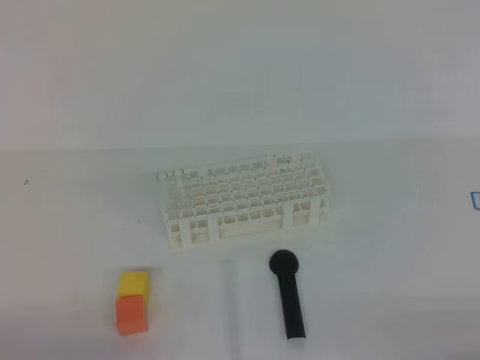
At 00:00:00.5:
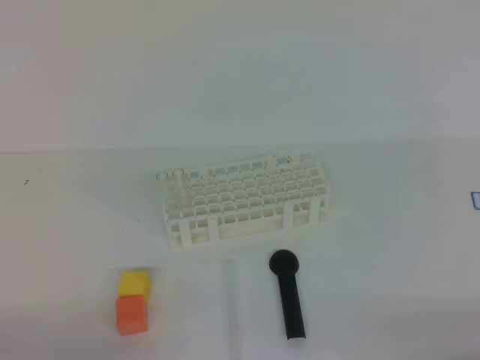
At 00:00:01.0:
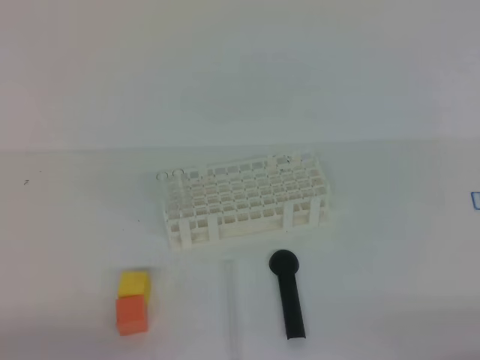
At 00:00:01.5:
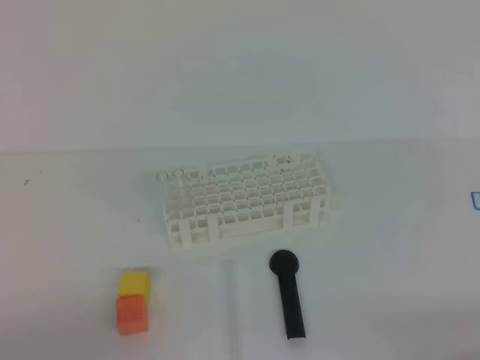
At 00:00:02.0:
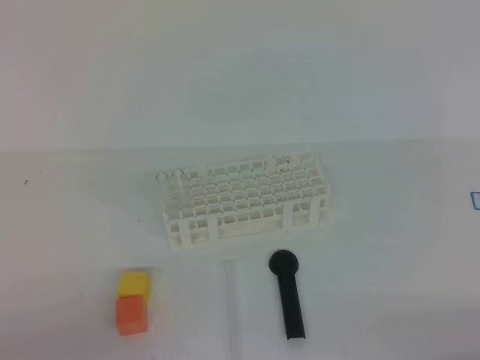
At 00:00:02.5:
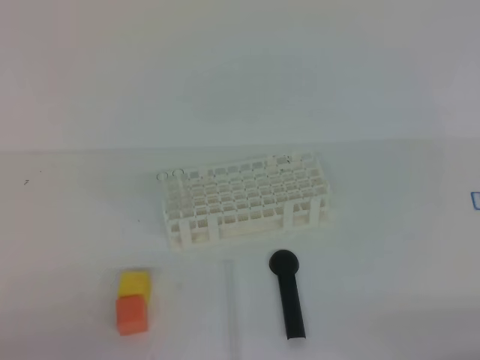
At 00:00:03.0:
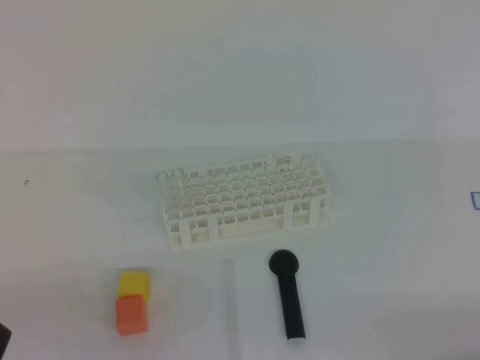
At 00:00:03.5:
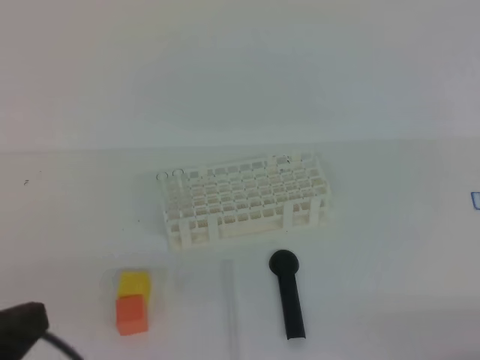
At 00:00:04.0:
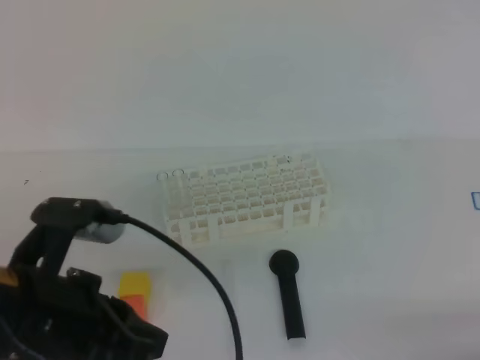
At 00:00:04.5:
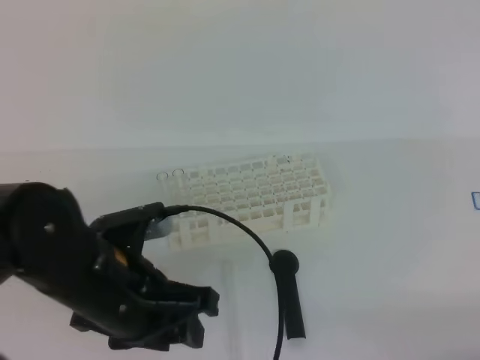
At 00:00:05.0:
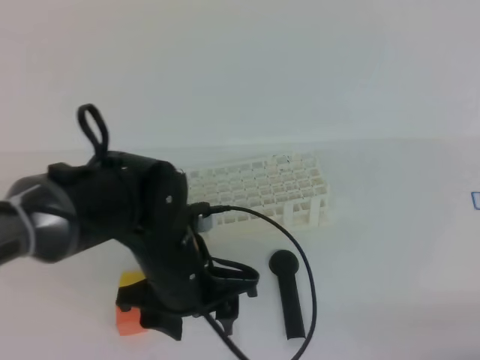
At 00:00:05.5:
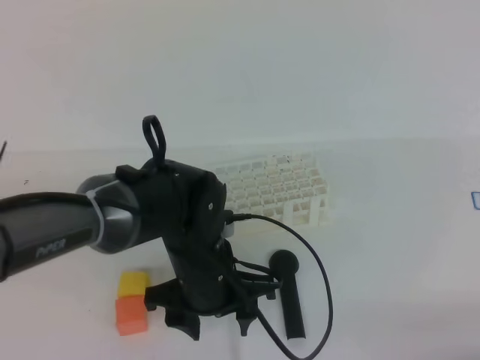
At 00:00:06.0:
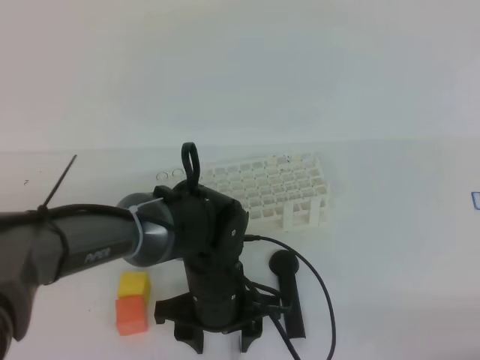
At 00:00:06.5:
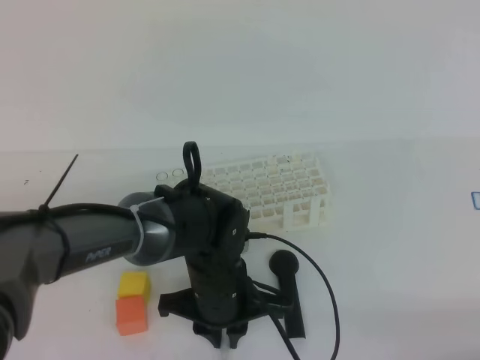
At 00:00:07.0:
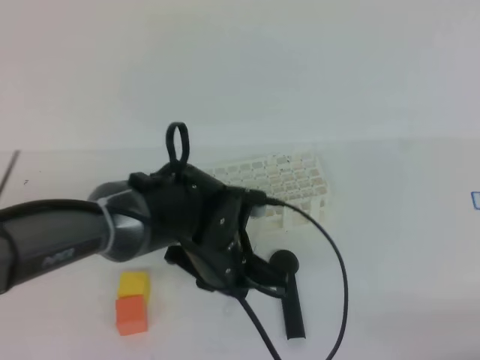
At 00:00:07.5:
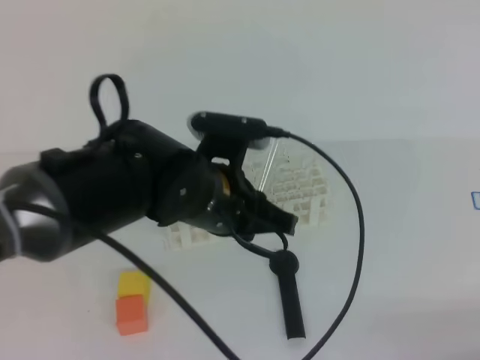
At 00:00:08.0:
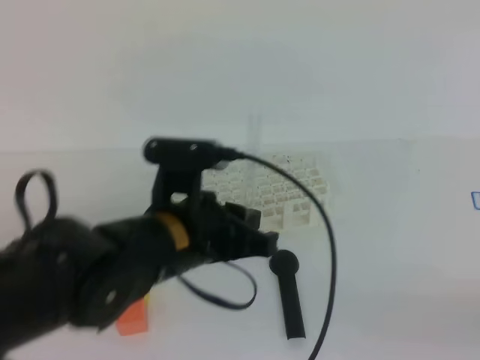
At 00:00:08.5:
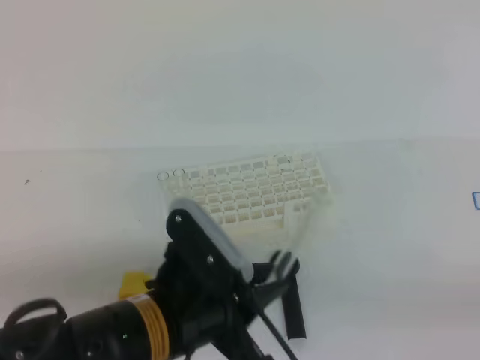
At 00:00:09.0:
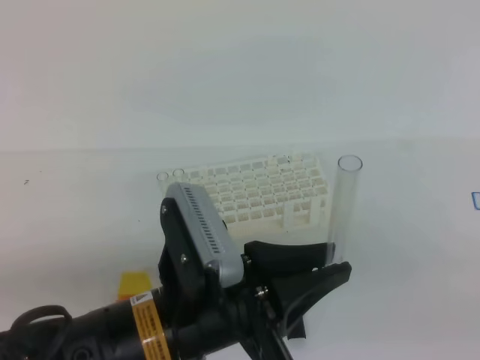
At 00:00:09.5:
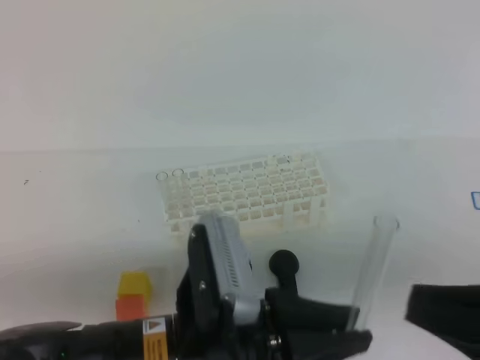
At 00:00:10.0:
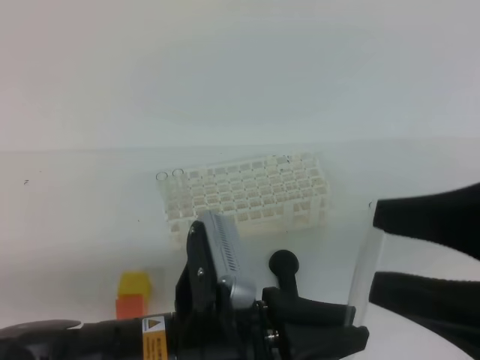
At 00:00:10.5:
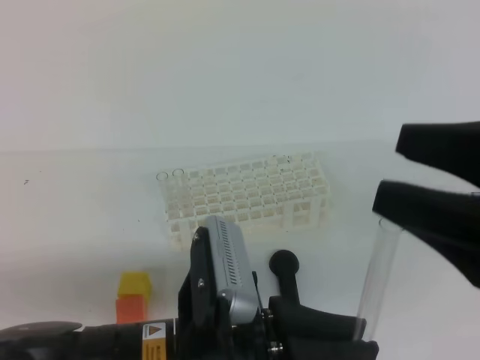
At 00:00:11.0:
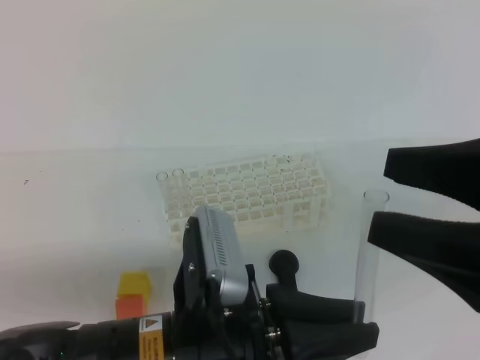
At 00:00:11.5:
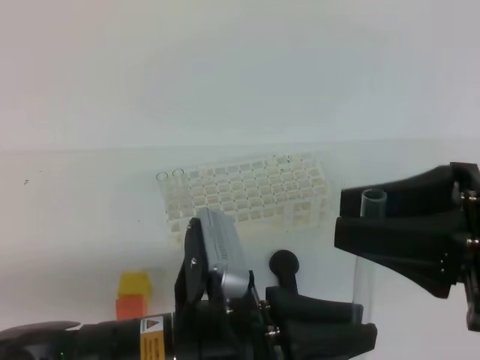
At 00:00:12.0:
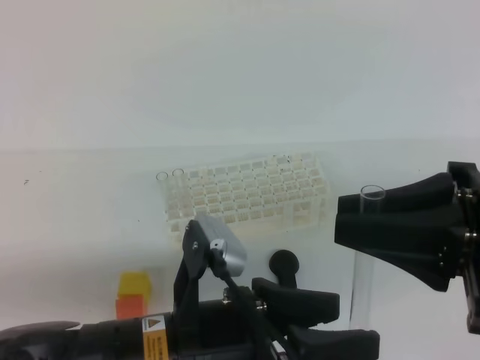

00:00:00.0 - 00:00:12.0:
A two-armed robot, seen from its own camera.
00:00:02.0 - 00:00:04.0: The left gripper shifts some 15 cm upward, to the right and forward.
00:00:04.0 - 00:00:06.0: The left gripper travels to the right, downward and forward by roughly 25 cm, and opens.
00:00:06.0 - 00:00:08.0: The left gripper goes some 10 cm upward, and closes up.
00:00:08.0 - 00:00:10.0: The left gripper moves backward, about 10 cm; the right gripper heads upward, to the left and forward, covering about 20 cm, and opens.
00:00:10.0 - 00:00:12.0: The right gripper closes. Meanwhile the left gripper opens its fingers.

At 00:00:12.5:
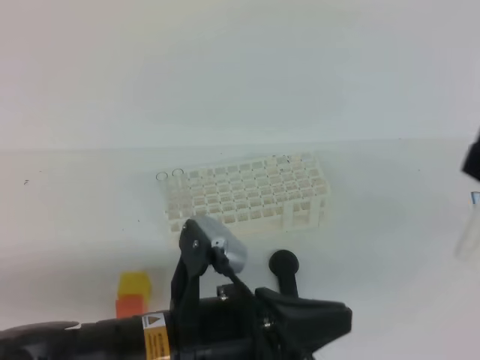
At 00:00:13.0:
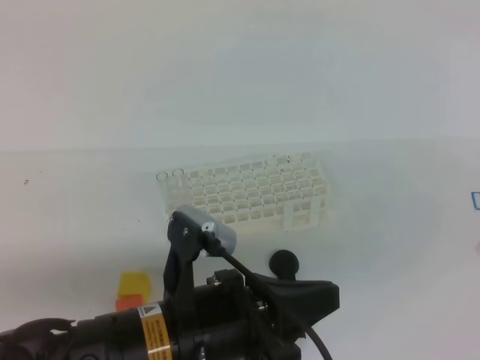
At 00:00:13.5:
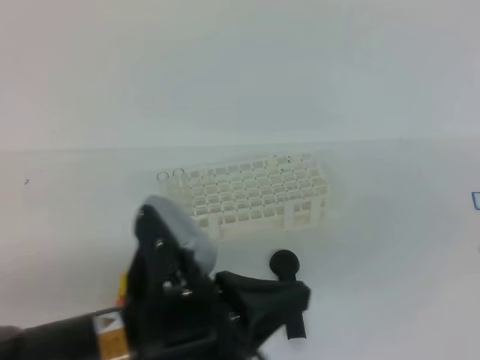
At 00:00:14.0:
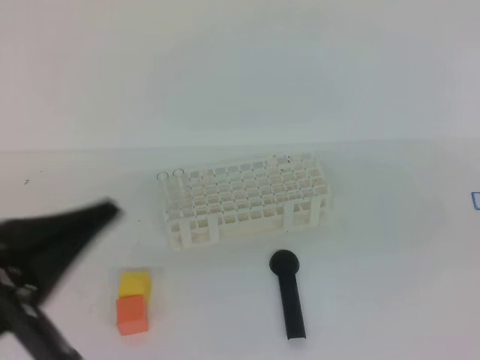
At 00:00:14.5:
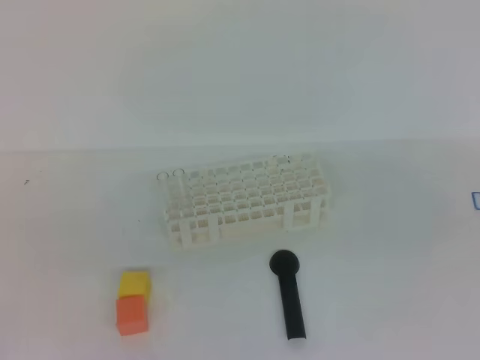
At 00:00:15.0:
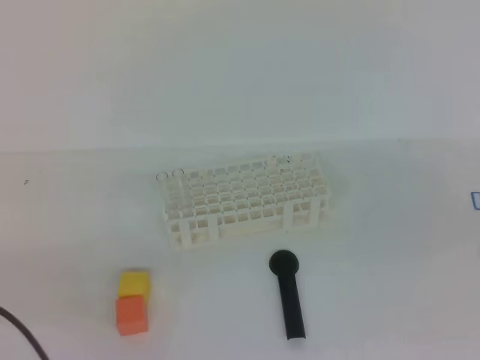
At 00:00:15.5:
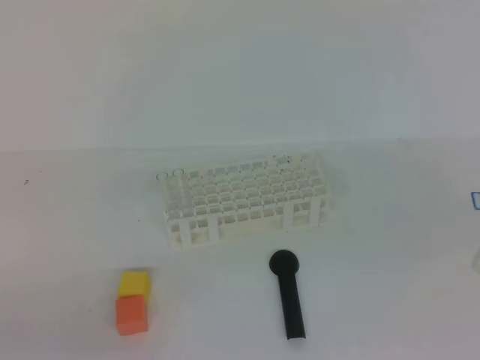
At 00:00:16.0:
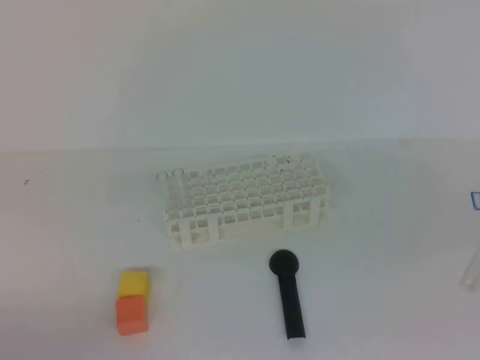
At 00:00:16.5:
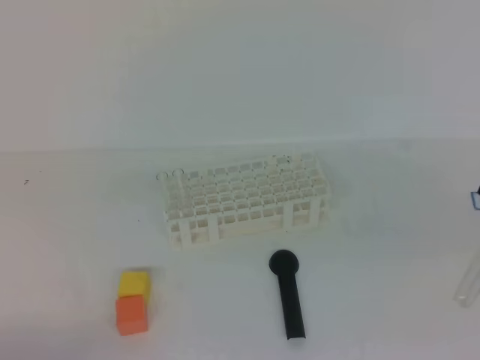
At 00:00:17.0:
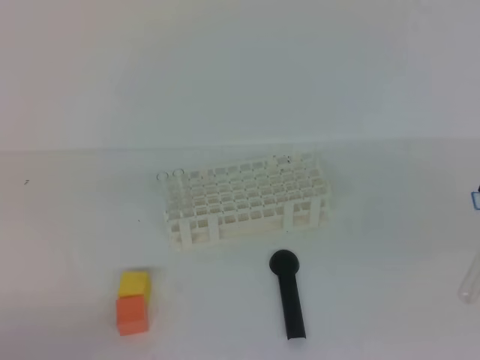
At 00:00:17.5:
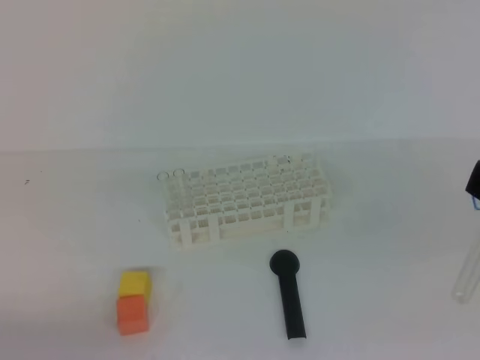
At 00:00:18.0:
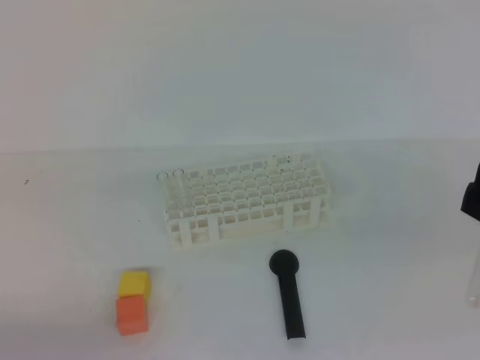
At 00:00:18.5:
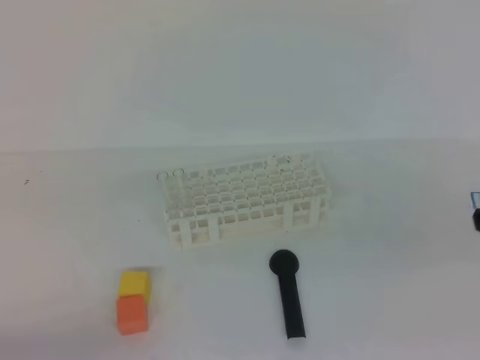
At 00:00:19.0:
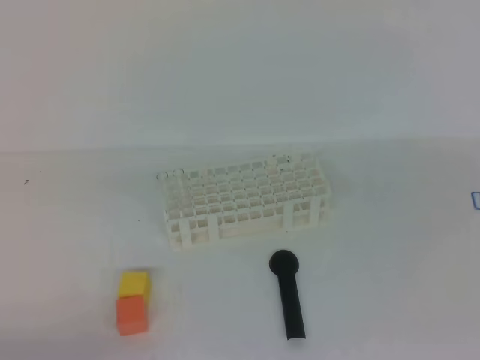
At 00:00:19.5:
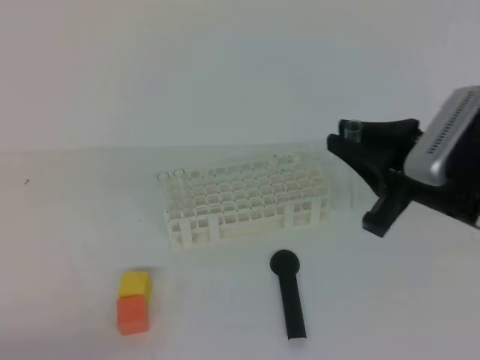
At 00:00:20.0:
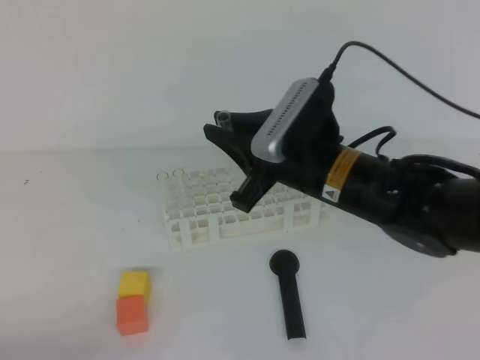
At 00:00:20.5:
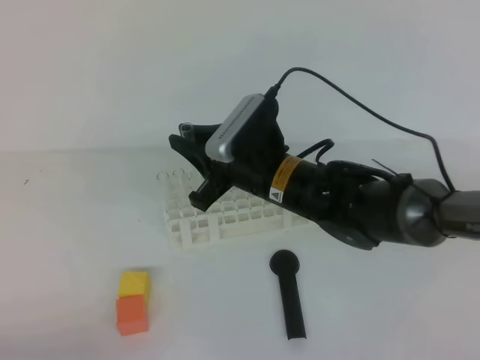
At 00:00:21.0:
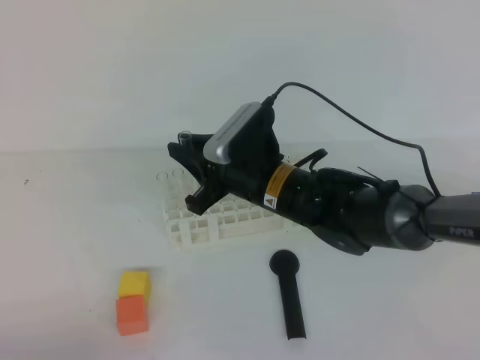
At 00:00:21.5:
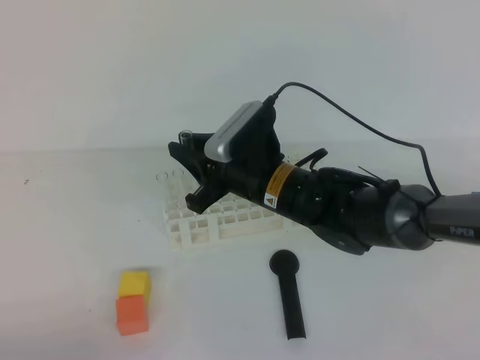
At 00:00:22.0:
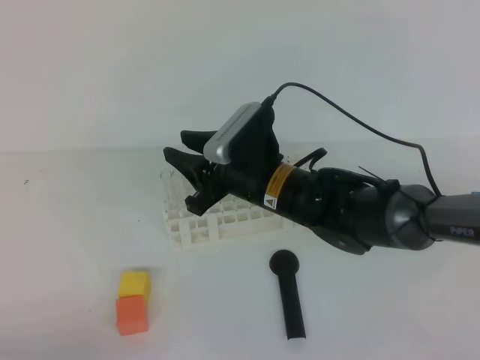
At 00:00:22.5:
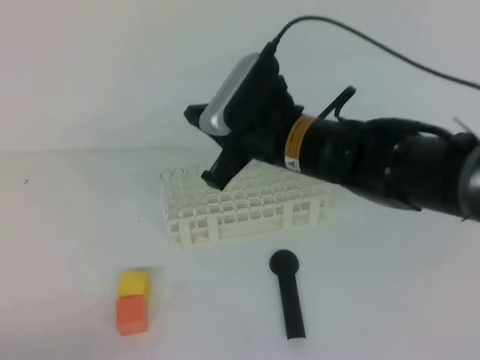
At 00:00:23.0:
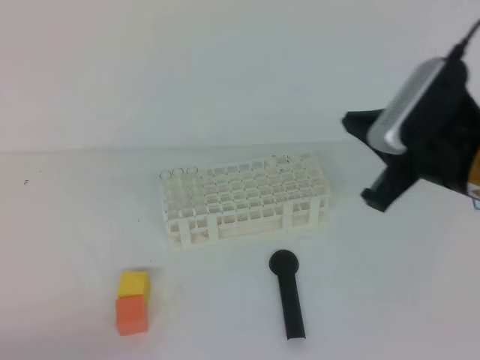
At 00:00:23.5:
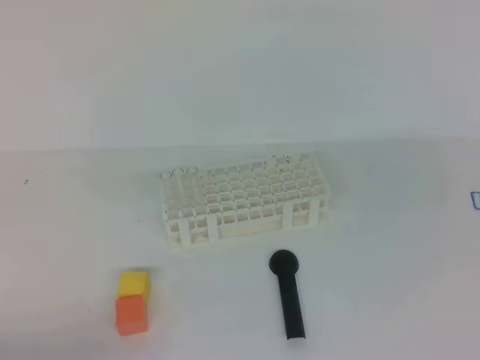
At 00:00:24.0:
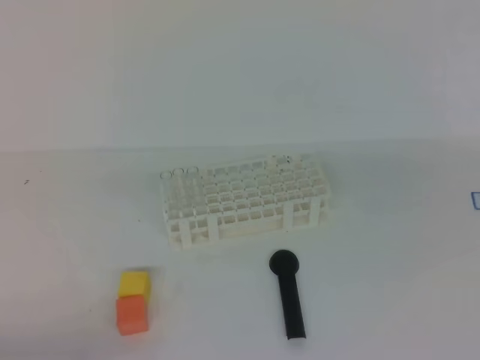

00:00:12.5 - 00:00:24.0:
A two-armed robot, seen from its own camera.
00:00:12.5 - 00:00:14.5: The left gripper travels to the left by approximately 20 cm.
00:00:14.5 - 00:00:16.5: The left gripper moves downward, some 15 cm.
00:00:18.5 - 00:00:20.0: The right gripper goes some 25 cm forward, to the left and downward.
00:00:20.0 - 00:00:22.0: The right gripper shifts about 10 cm to the left and downward.
00:00:22.0 - 00:00:24.0: The right gripper moves to the right, backward and upward, approximately 30 cm, and closes.
